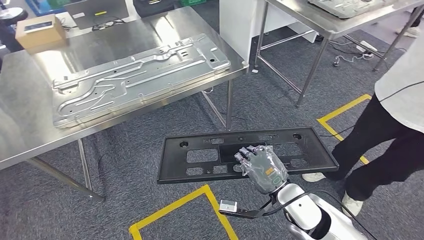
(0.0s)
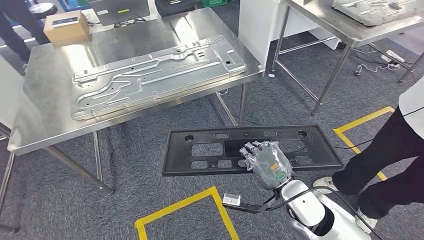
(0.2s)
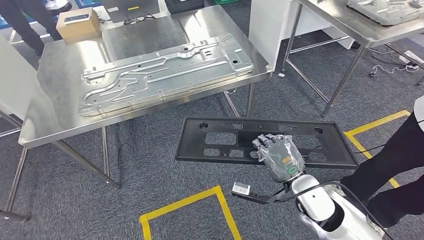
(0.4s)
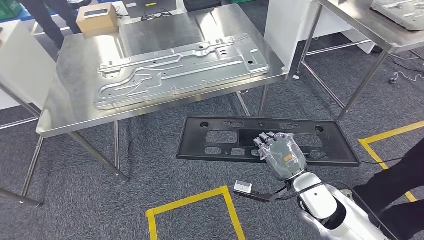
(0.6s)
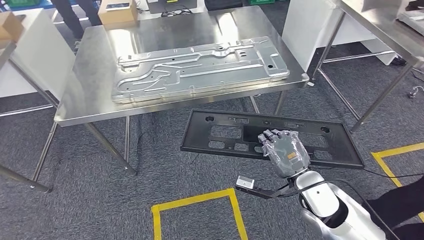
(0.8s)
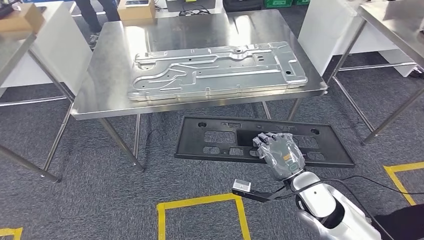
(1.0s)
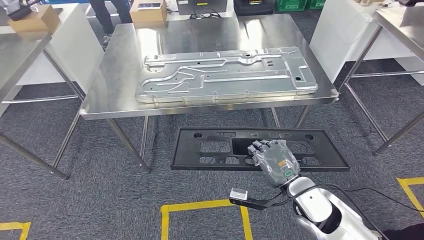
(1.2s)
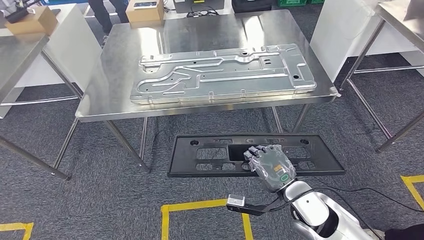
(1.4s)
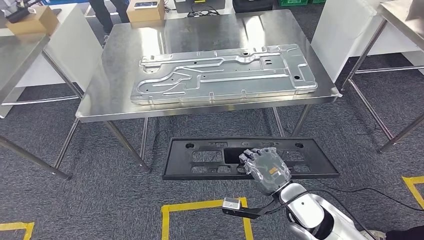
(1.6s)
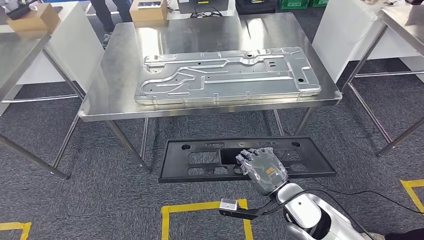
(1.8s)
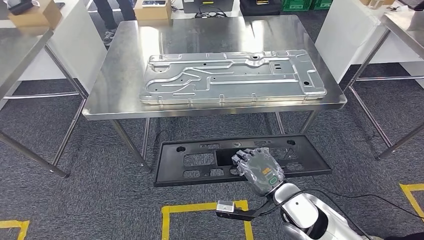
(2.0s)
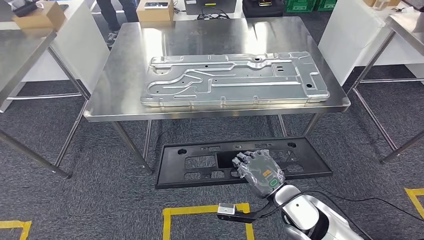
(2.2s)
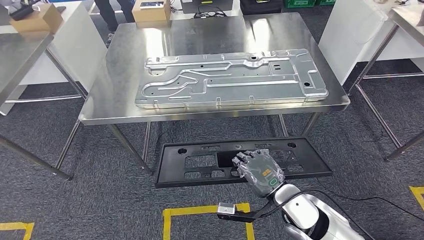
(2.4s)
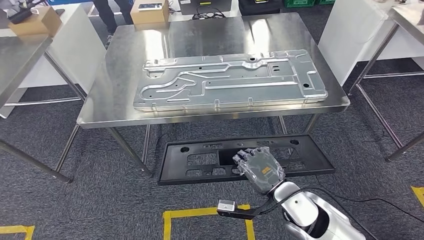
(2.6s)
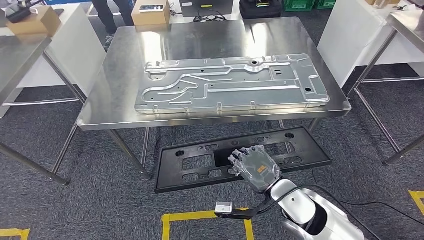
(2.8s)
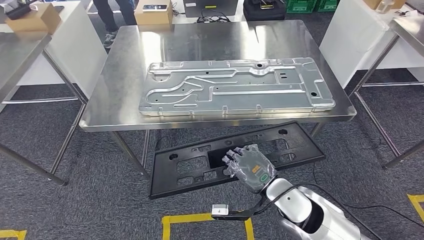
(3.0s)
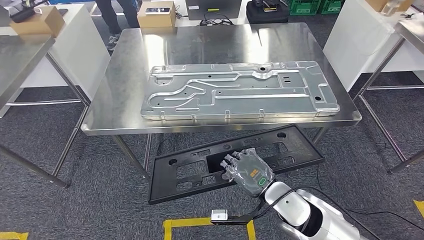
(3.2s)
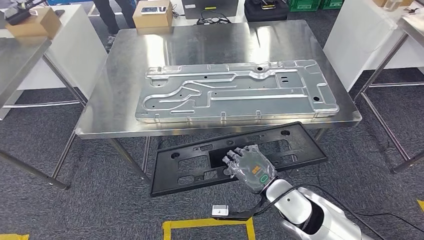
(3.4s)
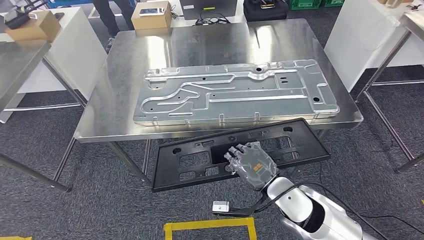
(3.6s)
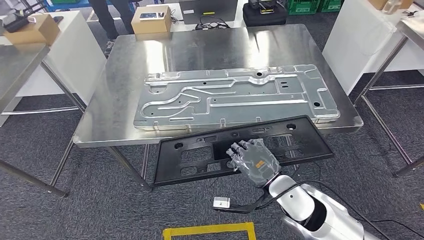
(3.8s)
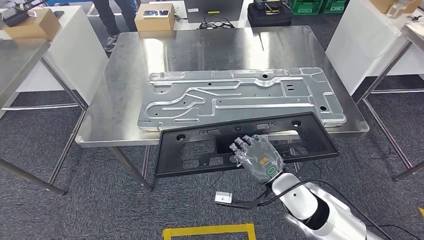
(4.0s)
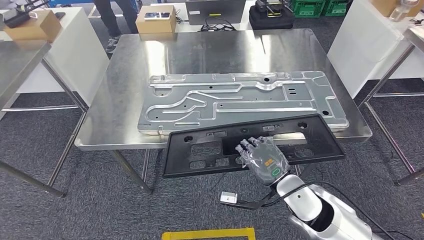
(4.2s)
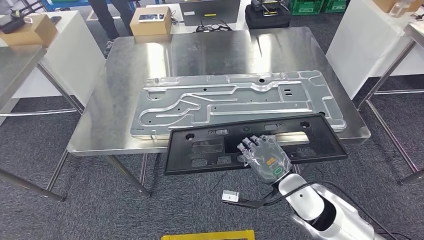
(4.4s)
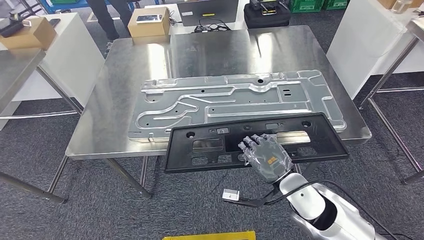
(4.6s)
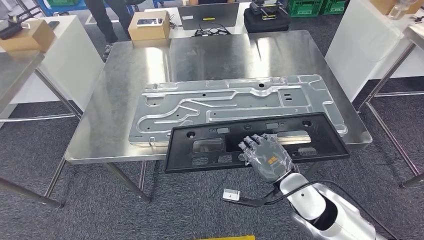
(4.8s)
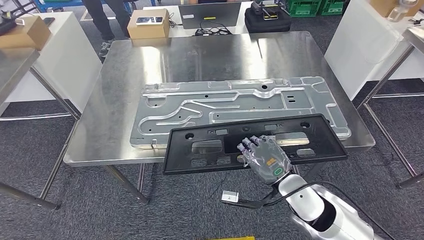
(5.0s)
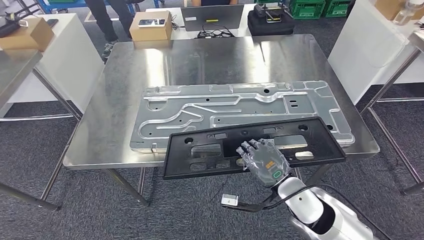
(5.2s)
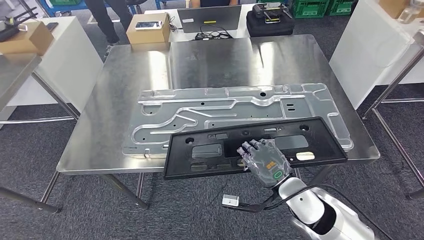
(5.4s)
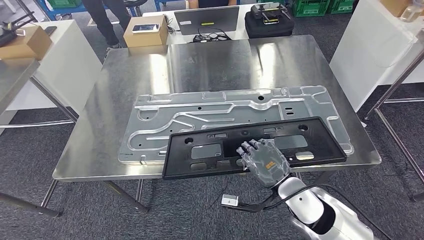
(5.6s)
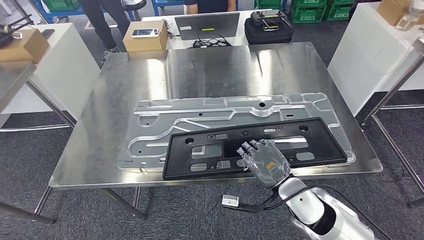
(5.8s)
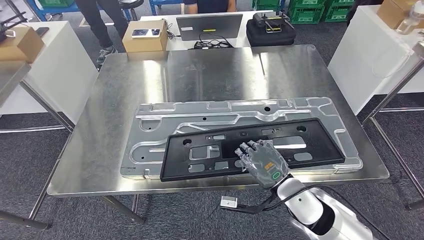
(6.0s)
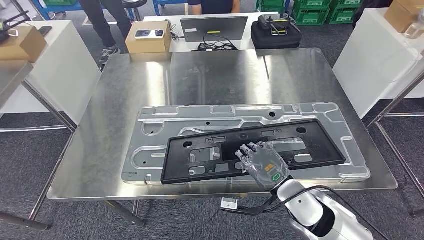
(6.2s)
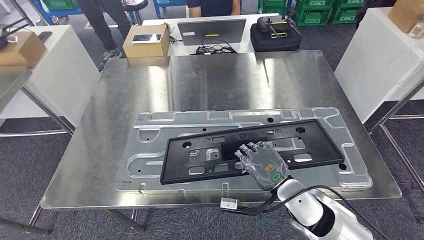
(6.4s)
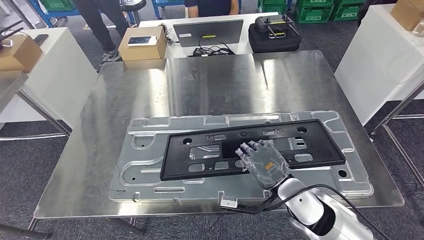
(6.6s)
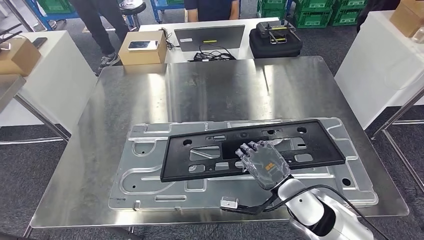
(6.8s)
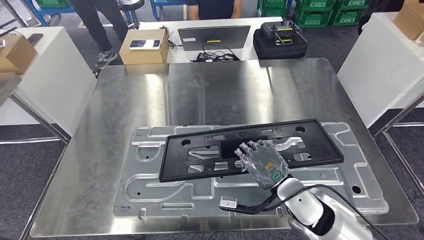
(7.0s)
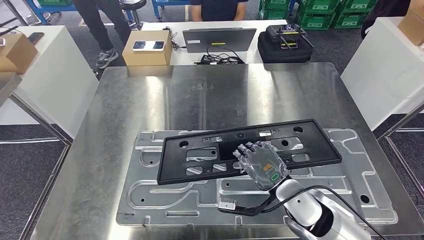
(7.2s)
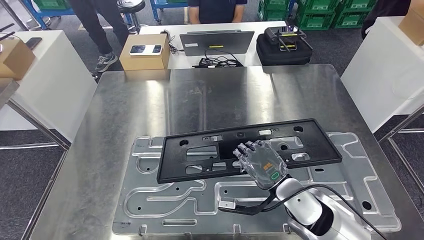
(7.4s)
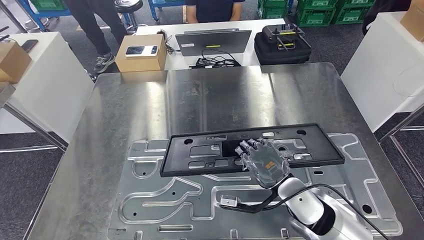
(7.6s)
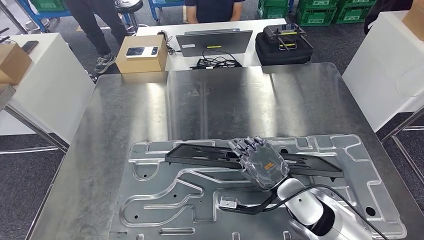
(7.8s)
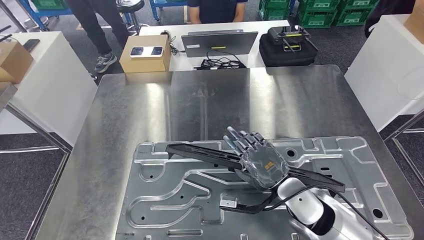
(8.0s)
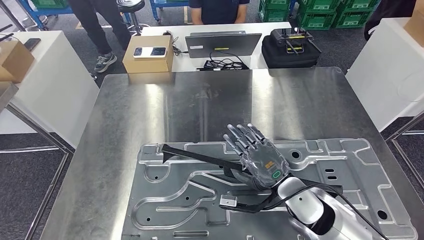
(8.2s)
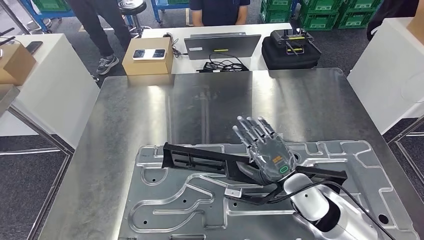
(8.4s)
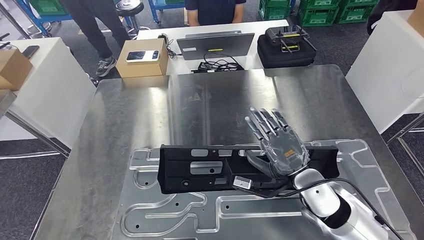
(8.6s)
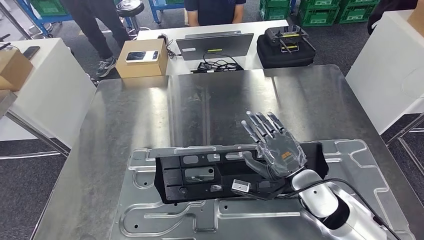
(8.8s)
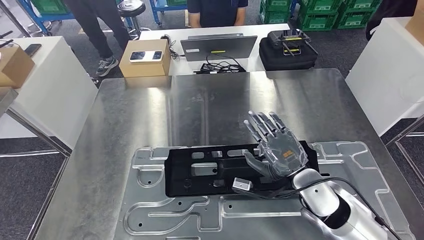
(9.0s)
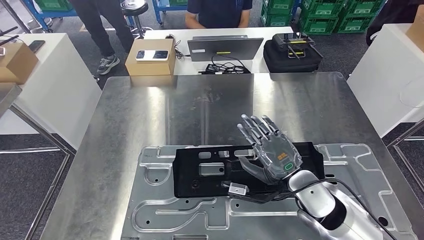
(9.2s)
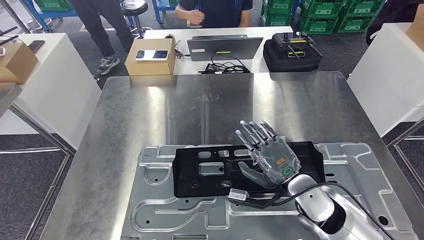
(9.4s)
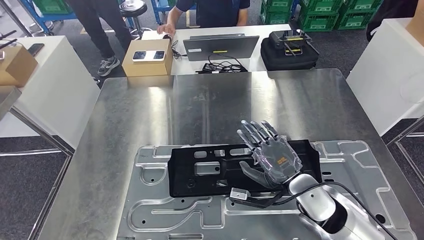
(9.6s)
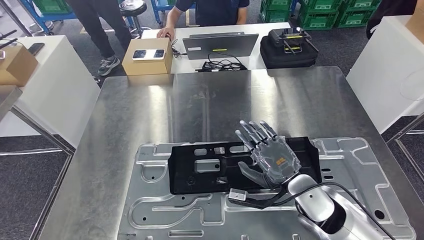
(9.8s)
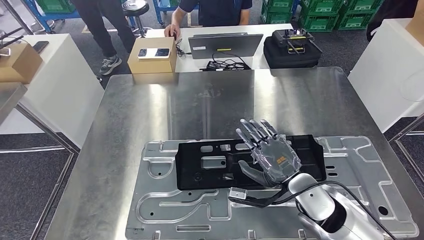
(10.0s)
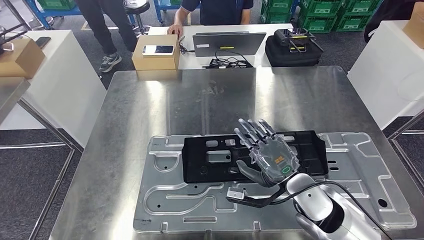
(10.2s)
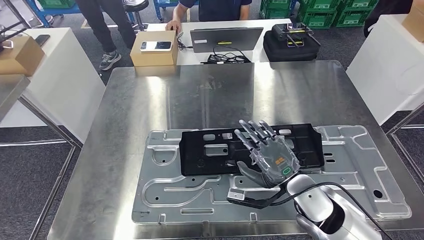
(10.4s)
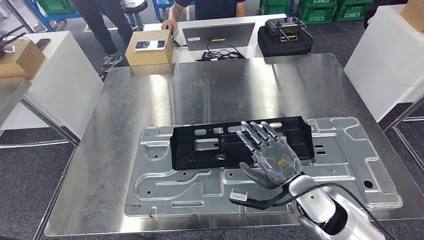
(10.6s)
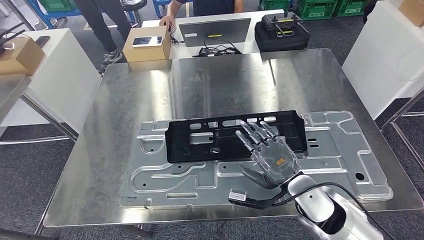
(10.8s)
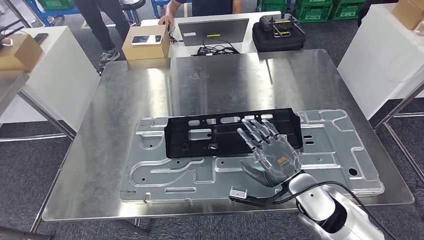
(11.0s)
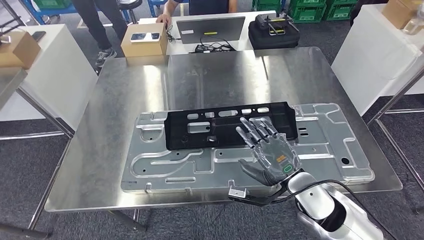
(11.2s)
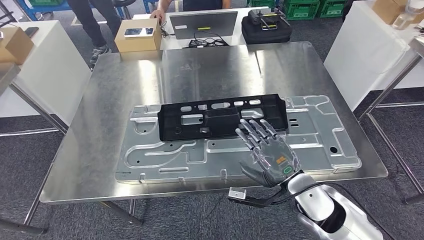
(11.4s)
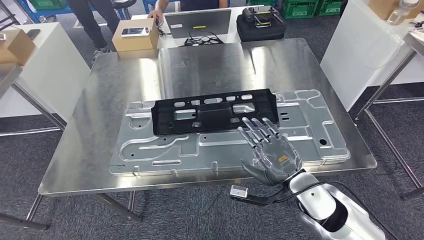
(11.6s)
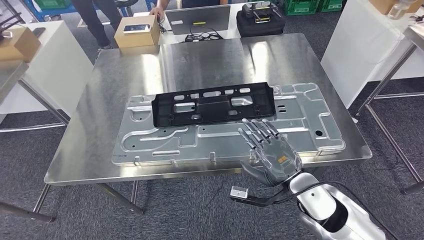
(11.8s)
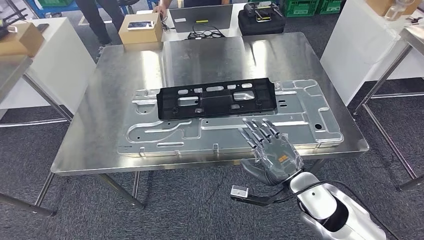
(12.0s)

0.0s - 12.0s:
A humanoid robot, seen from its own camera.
Step, 0.0s - 2.4s: Move the large material to the workbench.
Step, 2.6s - 11.6s: Insert the large material into the corresponding slot on the workbench.

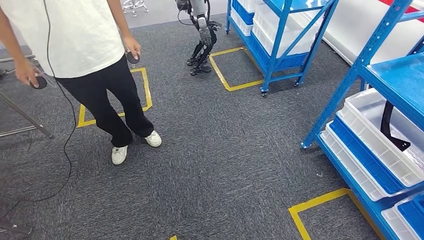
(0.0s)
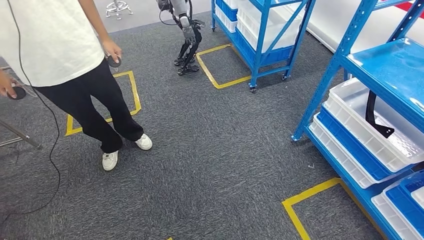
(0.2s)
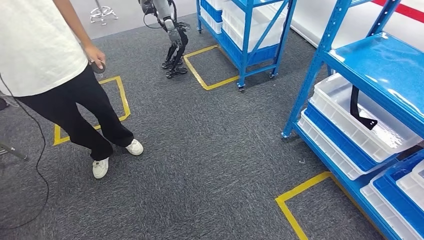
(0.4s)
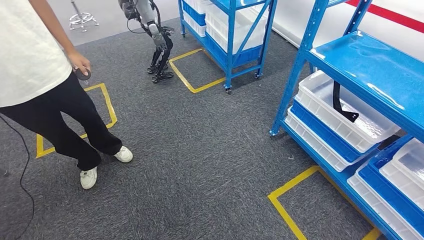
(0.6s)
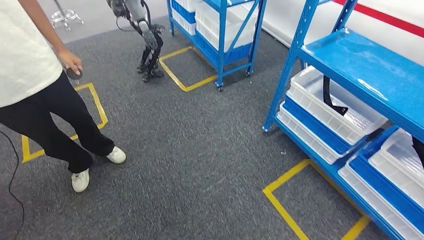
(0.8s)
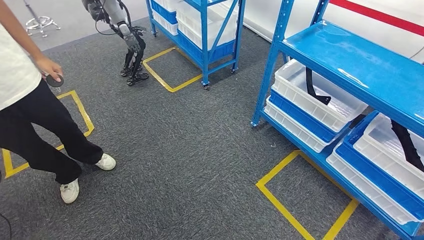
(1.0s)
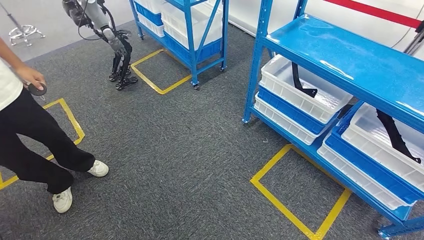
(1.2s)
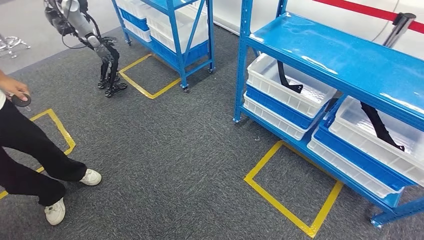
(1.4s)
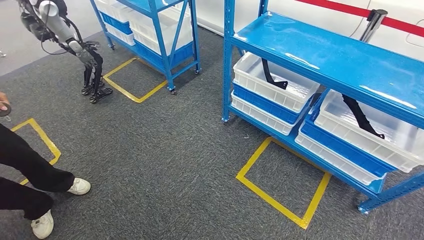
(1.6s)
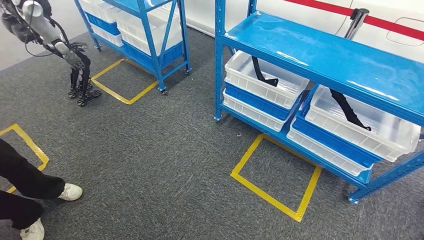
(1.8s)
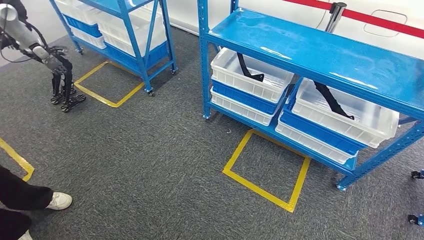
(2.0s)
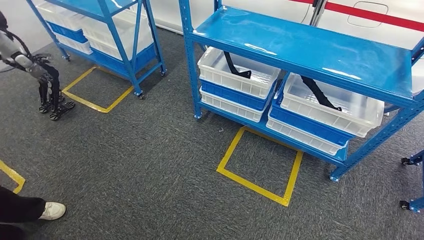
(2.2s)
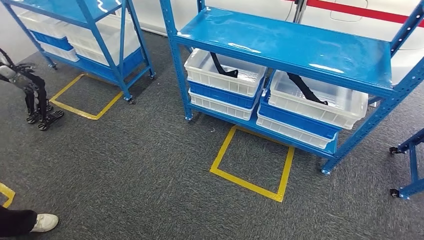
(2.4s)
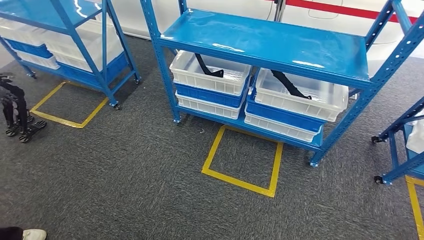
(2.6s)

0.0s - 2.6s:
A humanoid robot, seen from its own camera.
Step, 0.0s - 2.6s: Move to the initial position of the shelf.

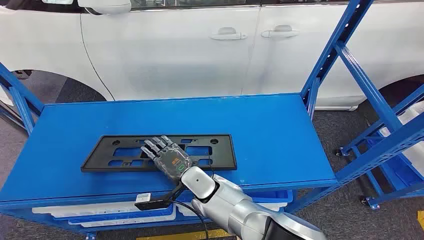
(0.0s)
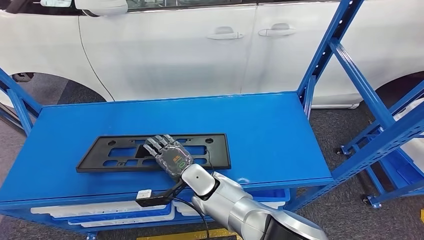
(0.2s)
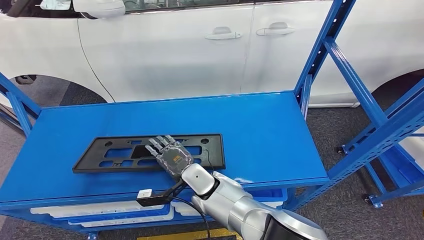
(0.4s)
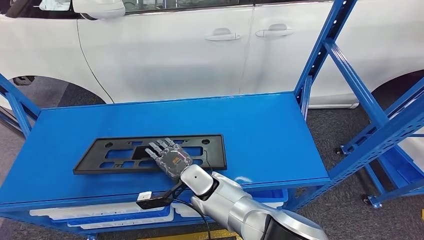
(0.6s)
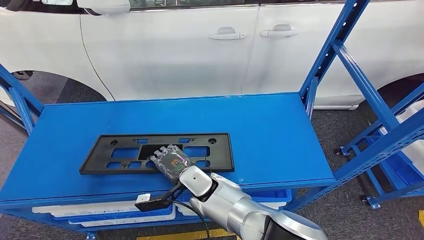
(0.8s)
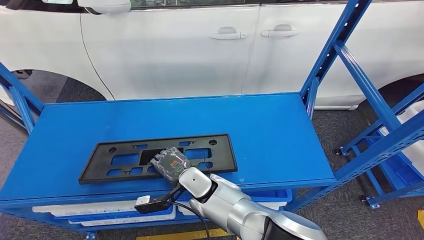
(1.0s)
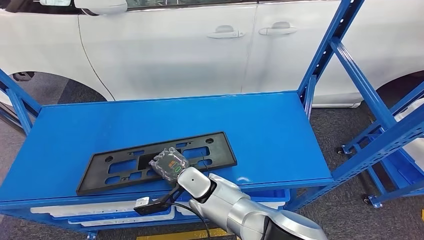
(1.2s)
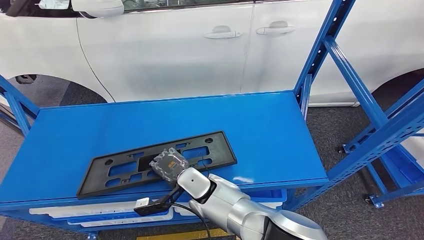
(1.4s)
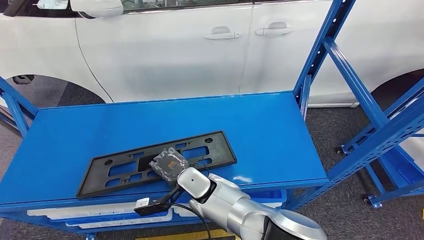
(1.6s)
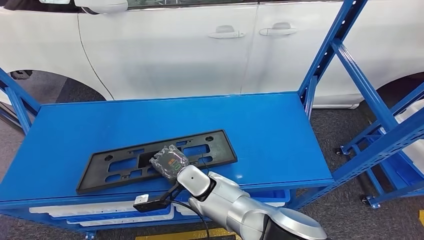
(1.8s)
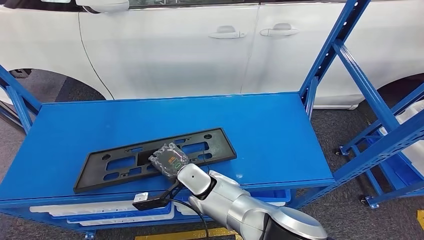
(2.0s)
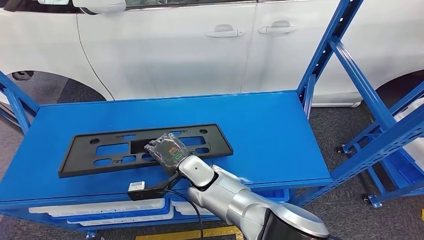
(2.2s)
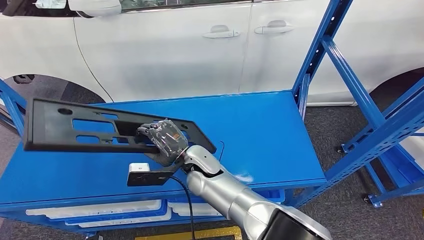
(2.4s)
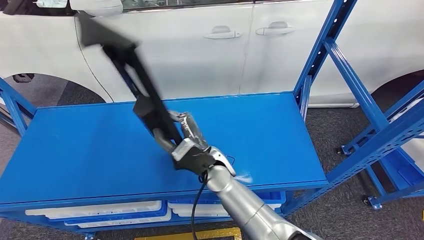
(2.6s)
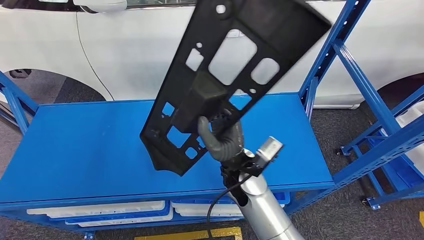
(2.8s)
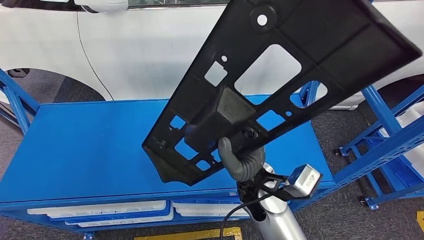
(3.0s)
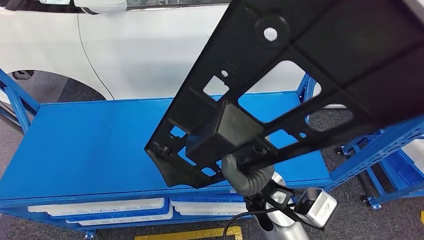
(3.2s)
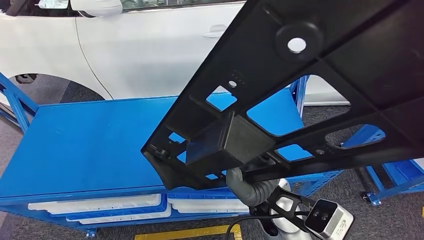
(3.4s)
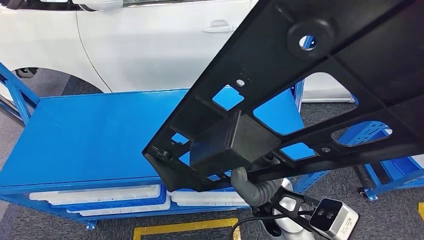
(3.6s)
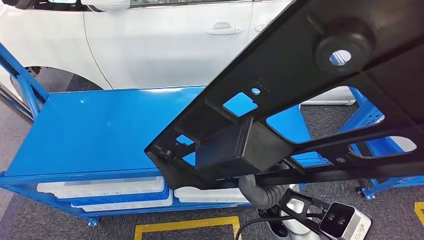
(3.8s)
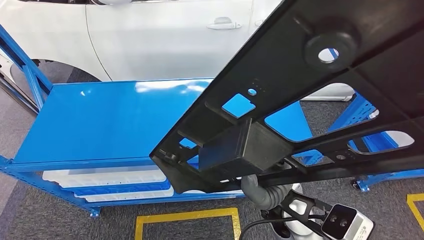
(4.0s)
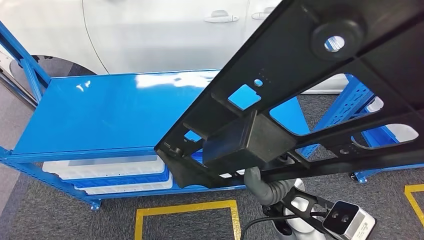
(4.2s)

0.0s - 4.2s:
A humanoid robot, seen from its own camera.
Step, 0.0s - 4.2s: Pick up the large material from the shelf.
